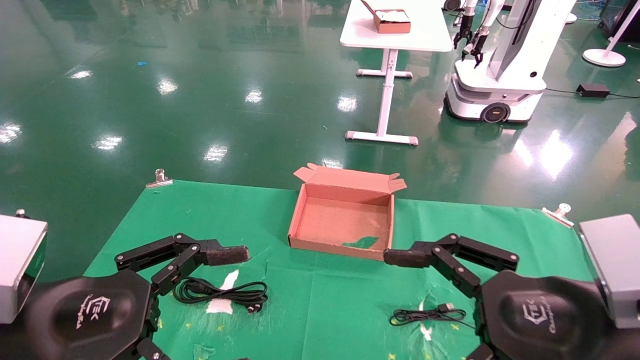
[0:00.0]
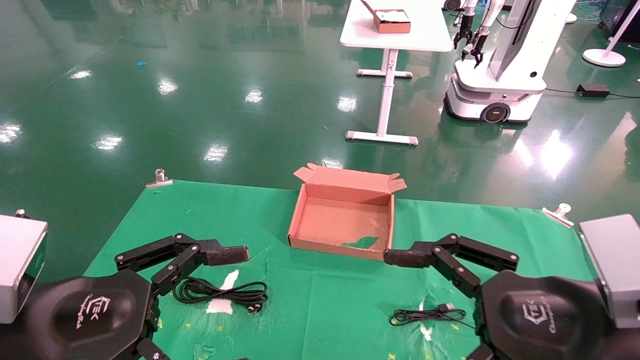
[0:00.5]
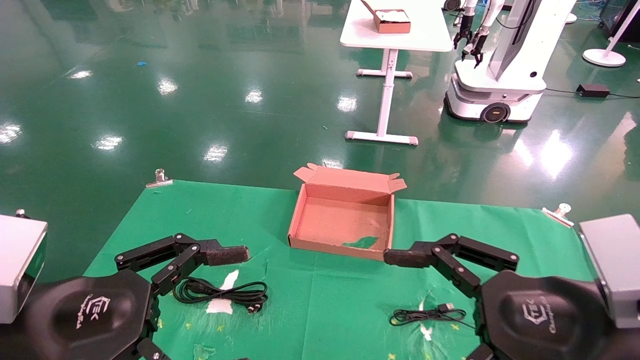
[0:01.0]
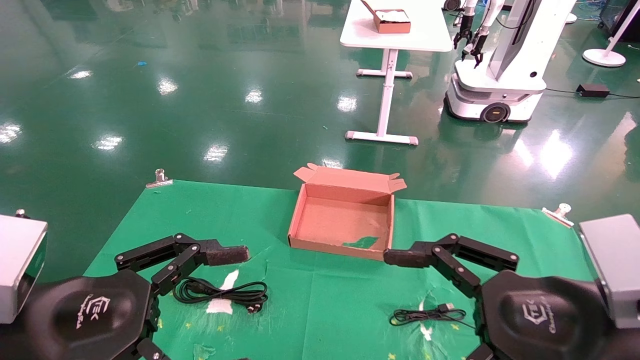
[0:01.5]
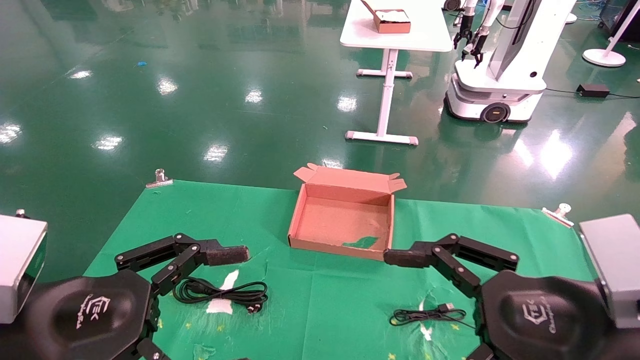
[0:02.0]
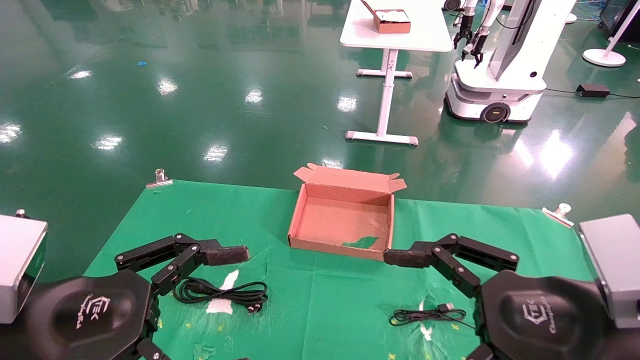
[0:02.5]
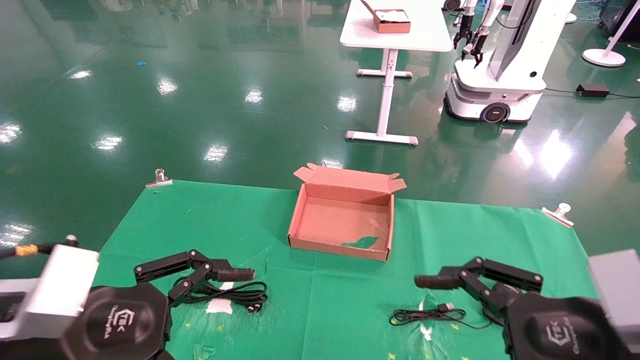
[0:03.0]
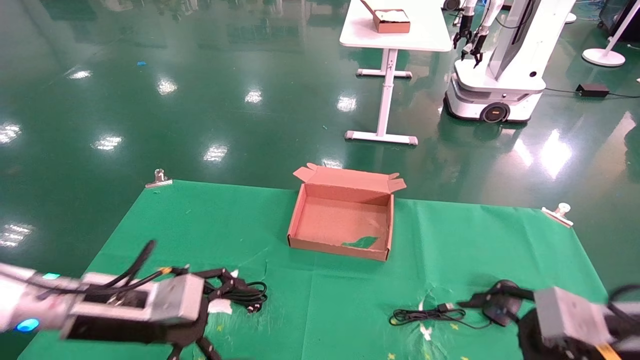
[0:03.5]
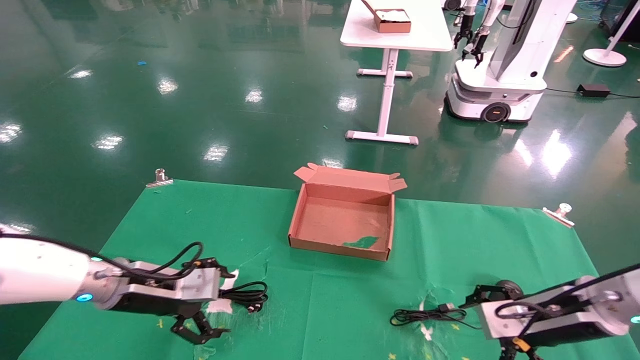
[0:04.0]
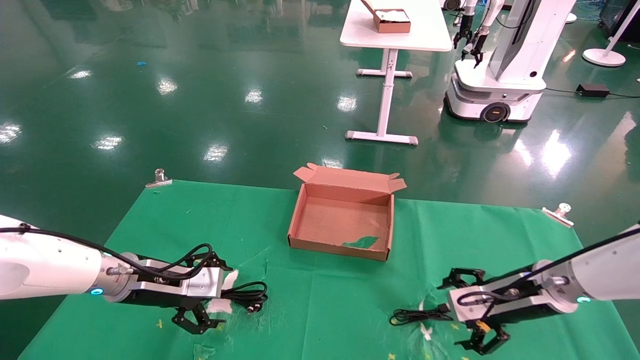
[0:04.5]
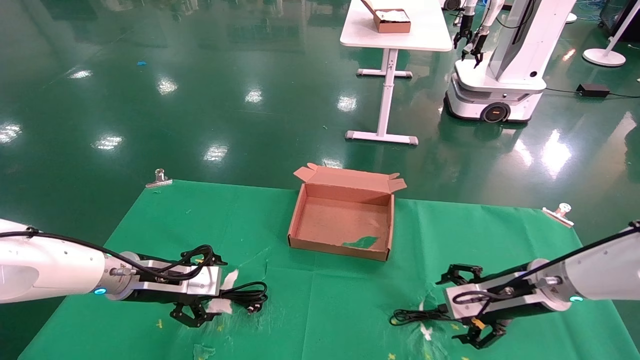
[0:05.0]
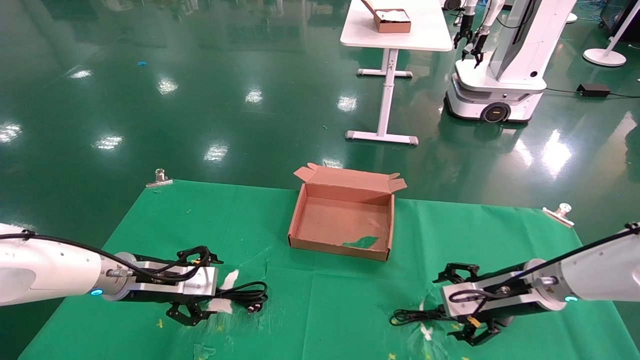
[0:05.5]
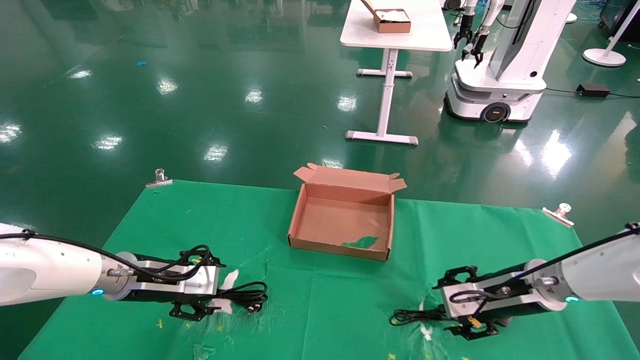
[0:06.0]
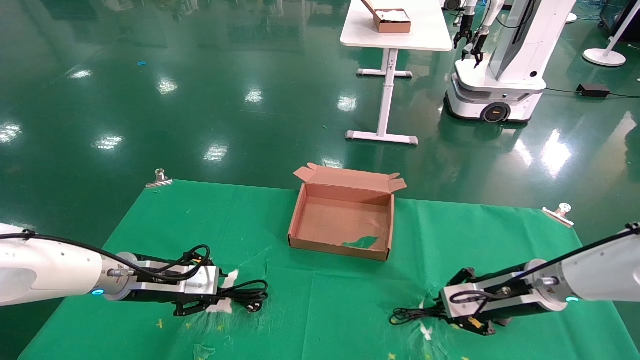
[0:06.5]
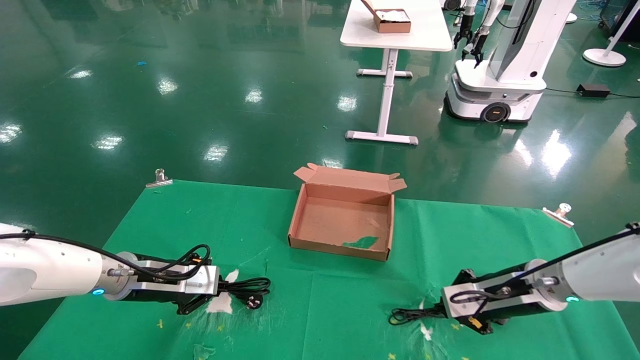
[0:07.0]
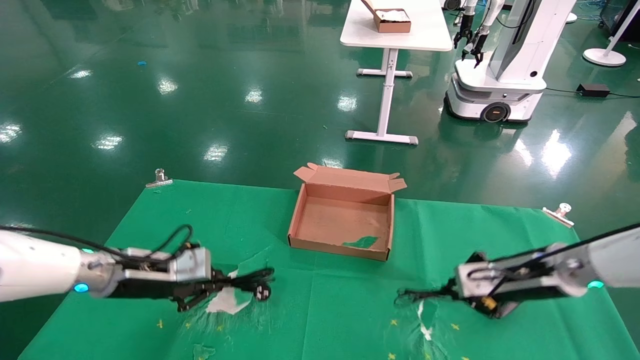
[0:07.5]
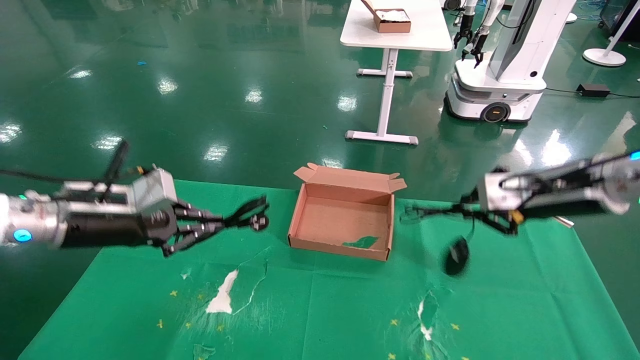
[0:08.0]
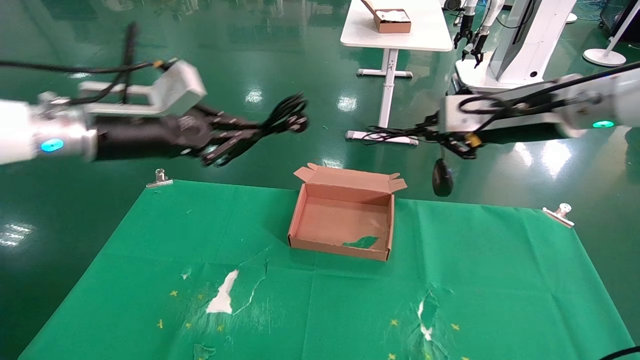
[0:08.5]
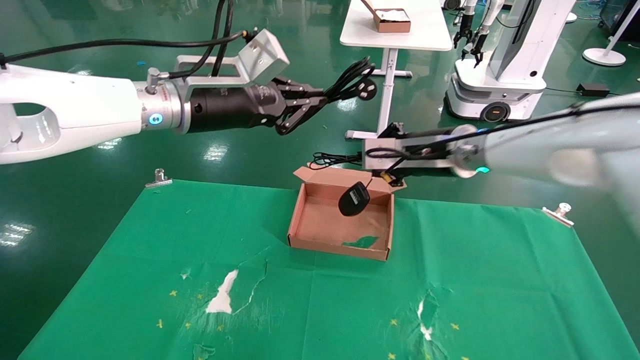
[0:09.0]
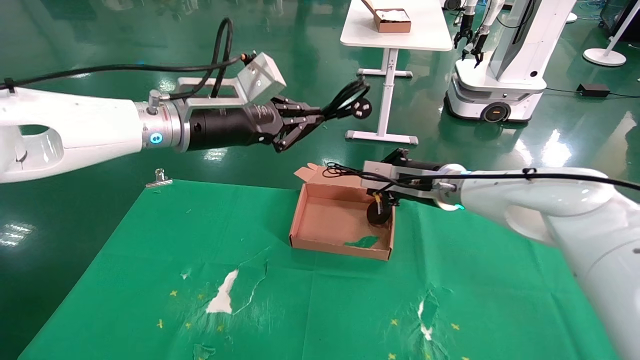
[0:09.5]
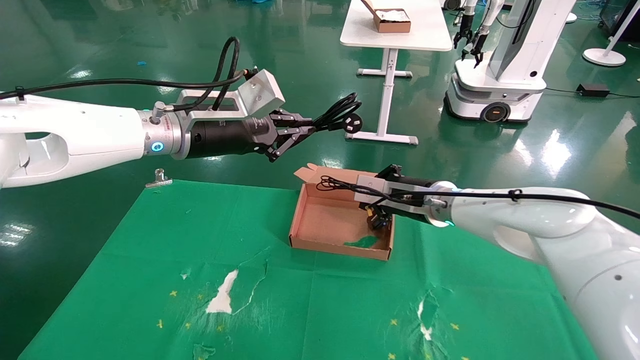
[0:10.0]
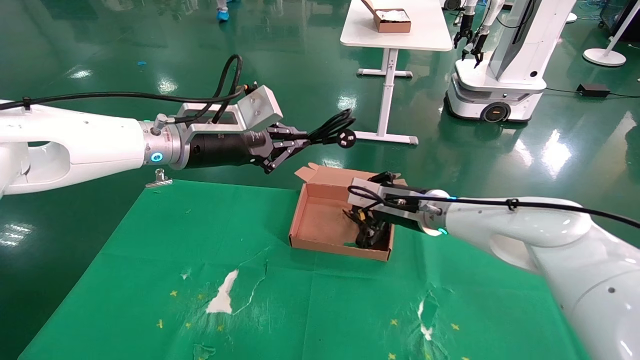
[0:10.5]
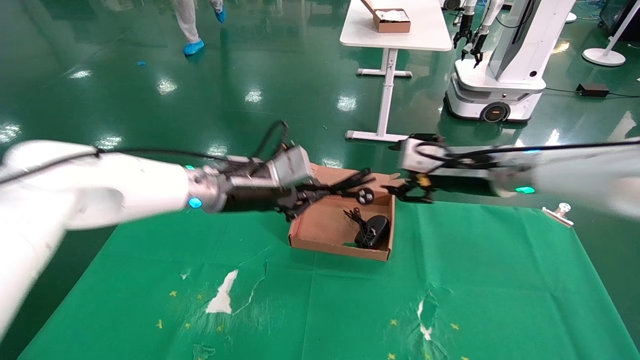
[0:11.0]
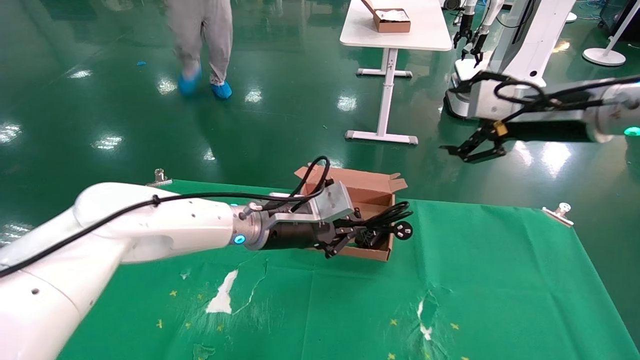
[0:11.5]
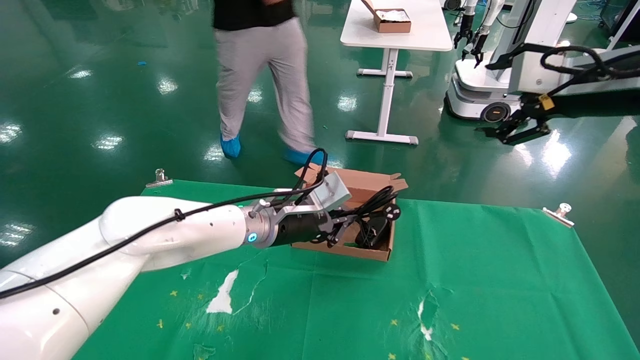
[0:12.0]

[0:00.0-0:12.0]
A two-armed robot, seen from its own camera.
Step, 0:04.0 to 0:07.5: Grab and lift both the mouse and power cord from the accessory packaging area at the same time.
0:00.0 to 0:02.0: Neither gripper changes place.
0:02.0 to 0:04.0: The left gripper shifts some 20 cm forward. Meanwhile the right gripper travels forward, downward and to the right by approximately 20 cm.
0:04.0 to 0:06.0: The right gripper shifts some 5 cm forward.
0:06.0 to 0:08.0: The right gripper shifts about 15 cm upward, and closes. The left gripper moves upward and backward, some 15 cm, and closes.
0:08.0 to 0:10.0: The right gripper heads to the left, forward and downward, covering some 20 cm. Meanwhile the left gripper goes roughly 20 cm to the right and upward.
0:10.0 to 0:12.0: The left gripper heads downward and to the right, covering some 15 cm; the right gripper heads upward, to the right and backward, covering roughly 30 cm, and opens.

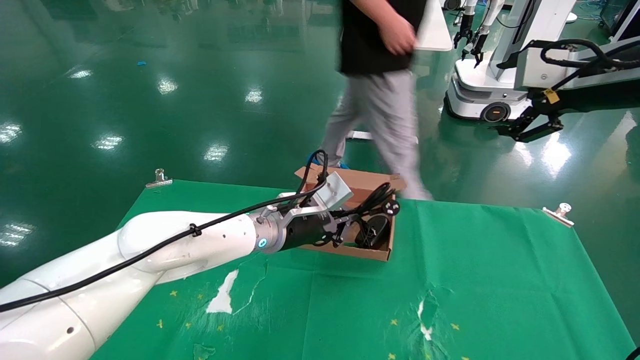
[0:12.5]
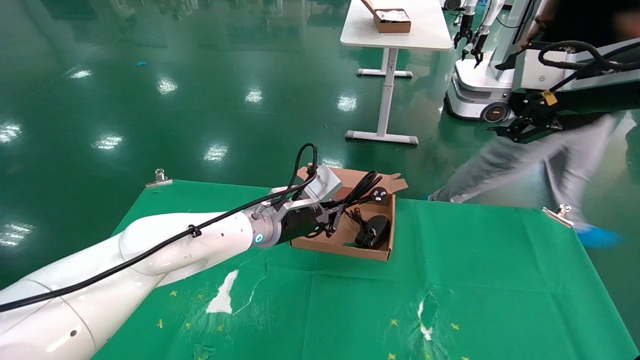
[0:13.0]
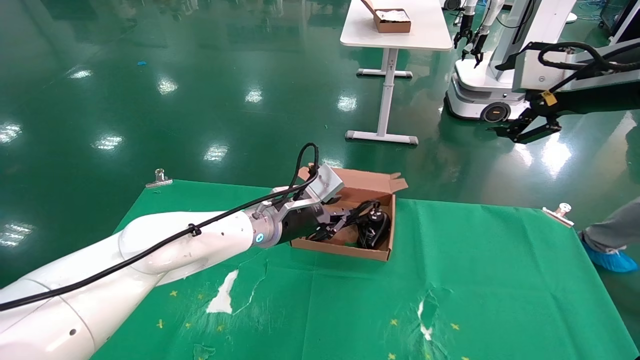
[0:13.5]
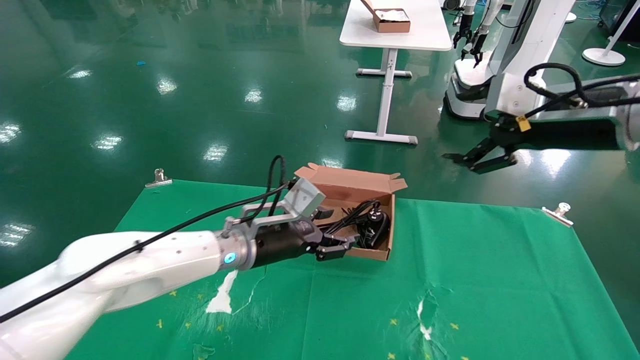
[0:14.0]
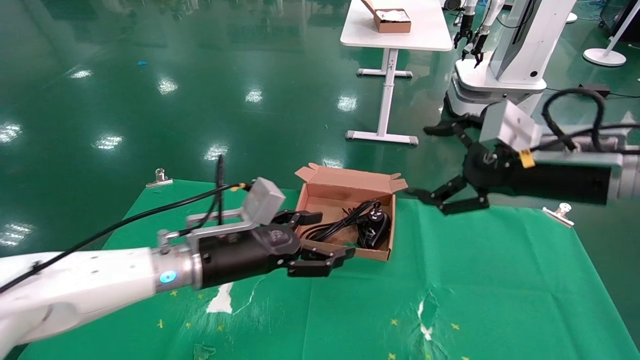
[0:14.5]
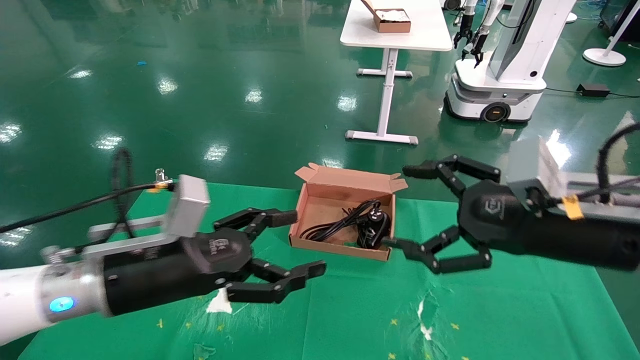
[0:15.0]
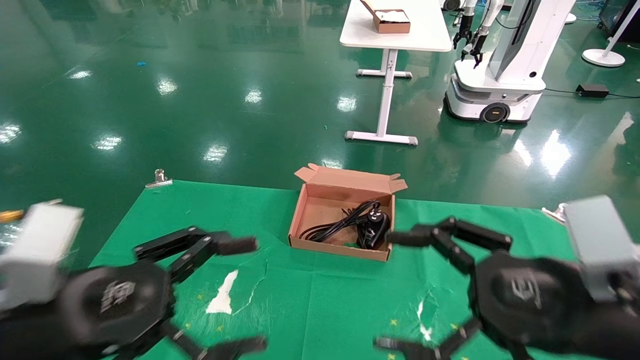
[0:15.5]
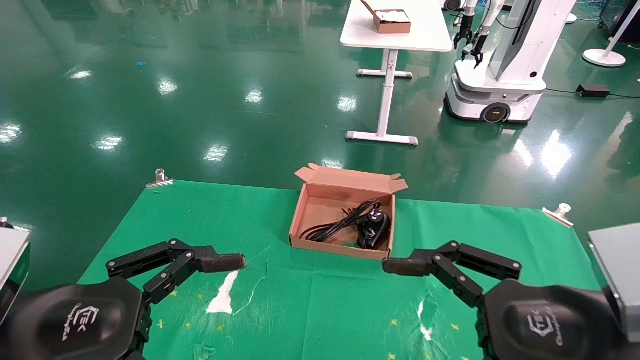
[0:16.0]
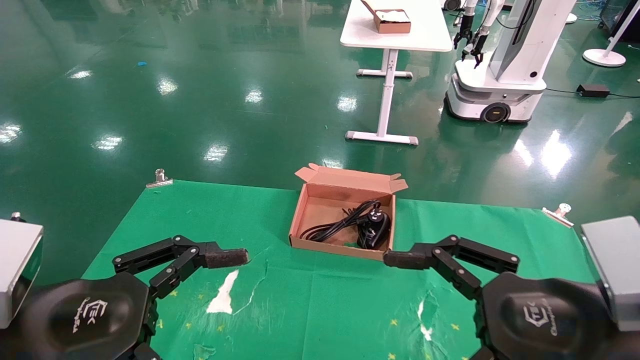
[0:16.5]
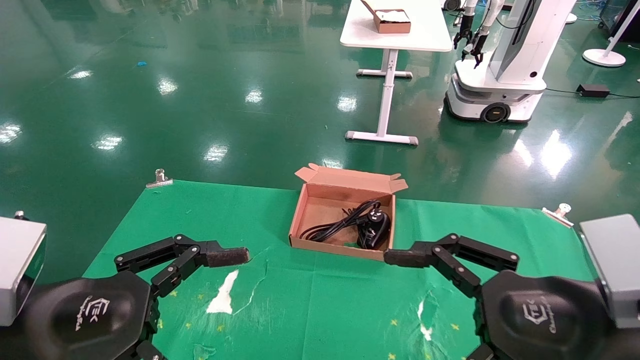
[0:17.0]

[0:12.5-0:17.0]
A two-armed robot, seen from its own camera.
0:12.5 to 0:14.5: The left gripper moves backward and to the left, about 15 cm, and opens its fingers. Meanwhile the right gripper shifts roughly 10 cm downward and to the left.
0:14.5 to 0:17.0: The left gripper shifts some 20 cm backward and to the left. Meanwhile the right gripper goes about 15 cm backward and downward.
